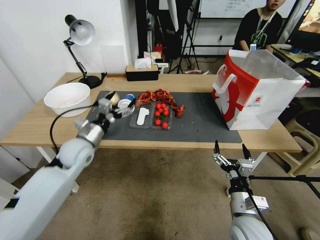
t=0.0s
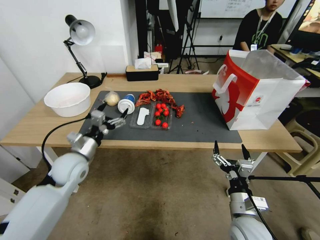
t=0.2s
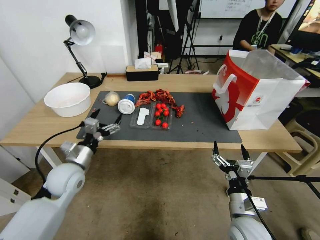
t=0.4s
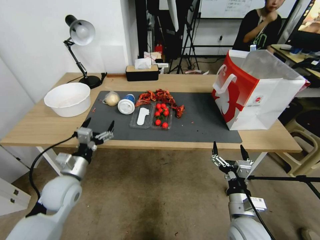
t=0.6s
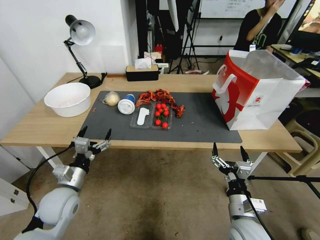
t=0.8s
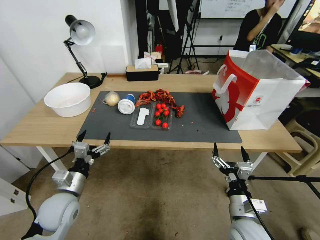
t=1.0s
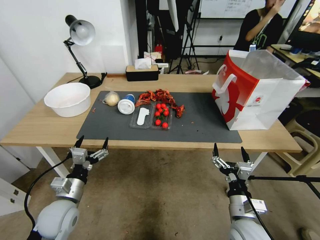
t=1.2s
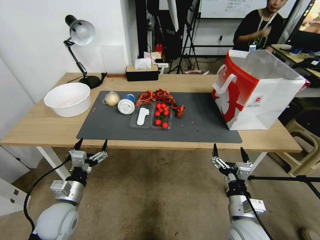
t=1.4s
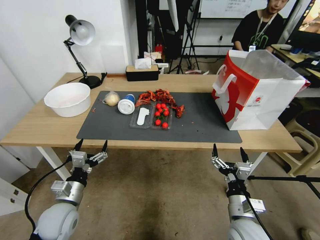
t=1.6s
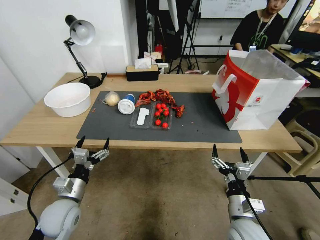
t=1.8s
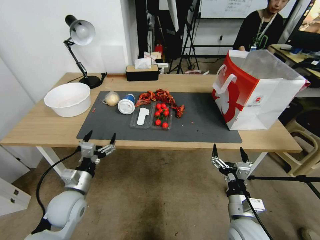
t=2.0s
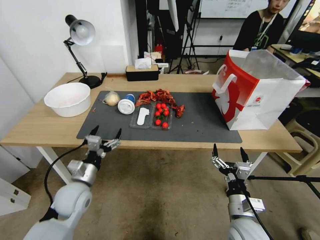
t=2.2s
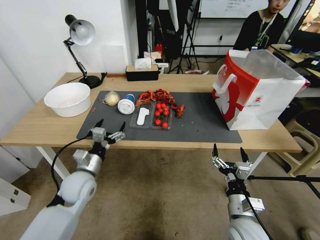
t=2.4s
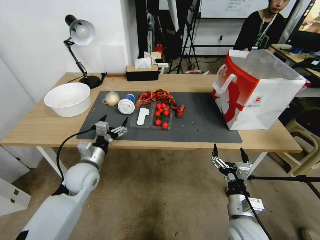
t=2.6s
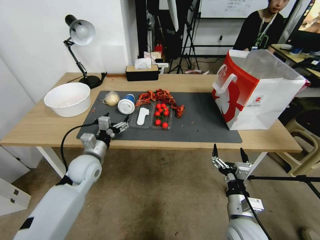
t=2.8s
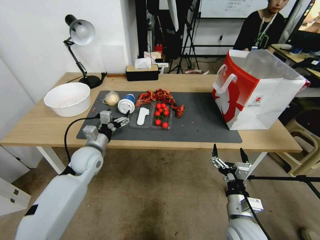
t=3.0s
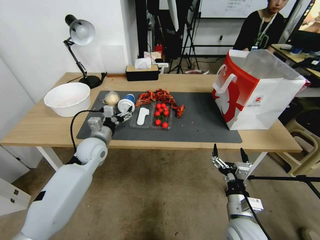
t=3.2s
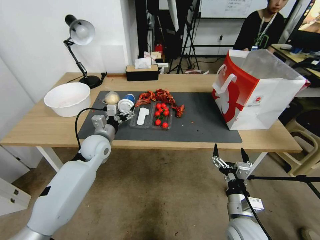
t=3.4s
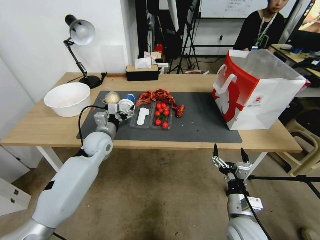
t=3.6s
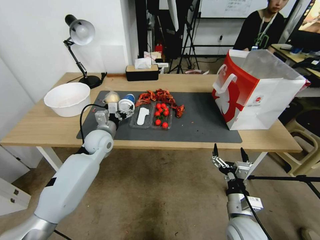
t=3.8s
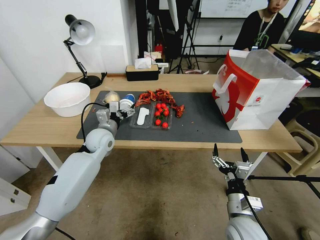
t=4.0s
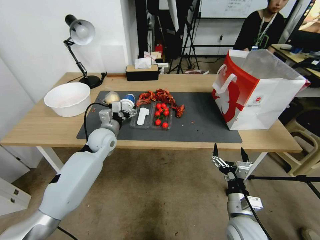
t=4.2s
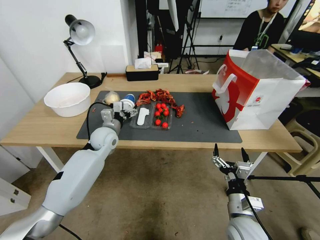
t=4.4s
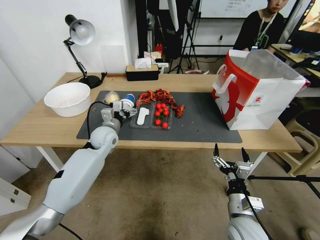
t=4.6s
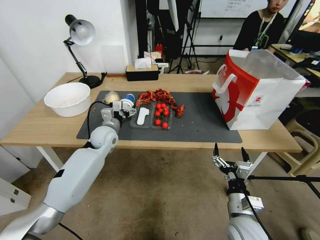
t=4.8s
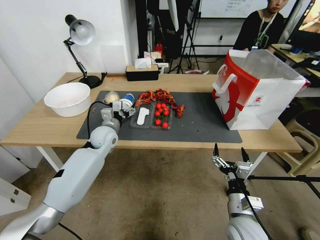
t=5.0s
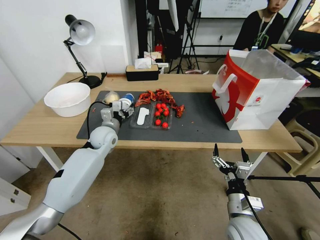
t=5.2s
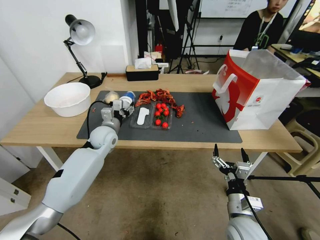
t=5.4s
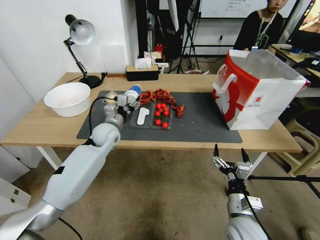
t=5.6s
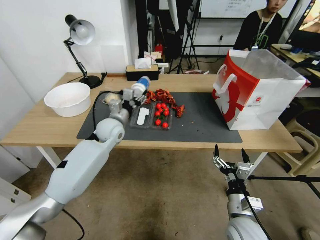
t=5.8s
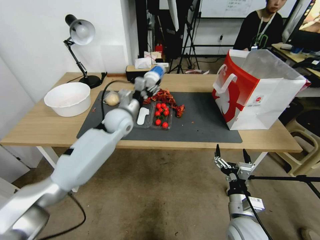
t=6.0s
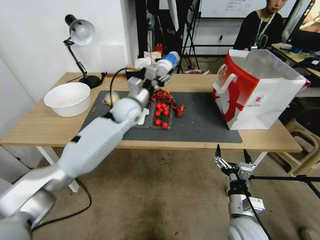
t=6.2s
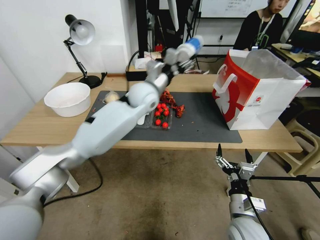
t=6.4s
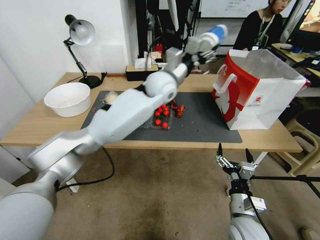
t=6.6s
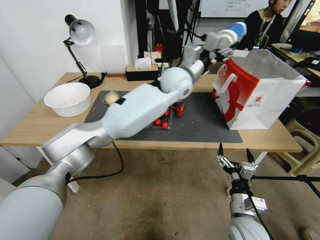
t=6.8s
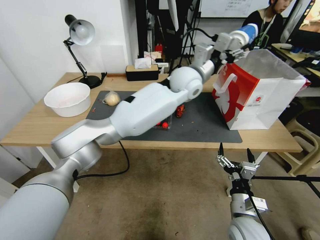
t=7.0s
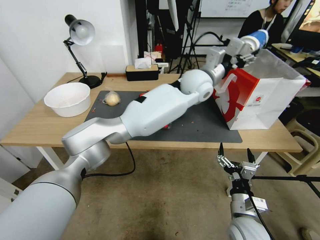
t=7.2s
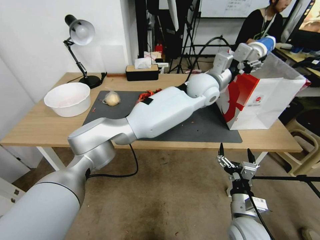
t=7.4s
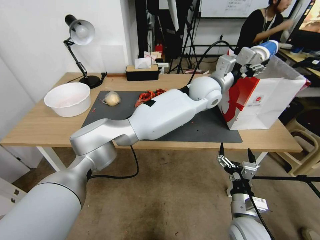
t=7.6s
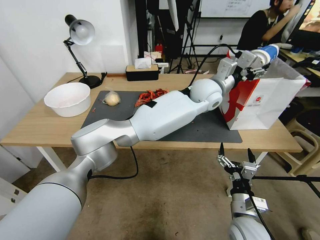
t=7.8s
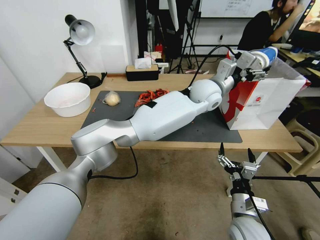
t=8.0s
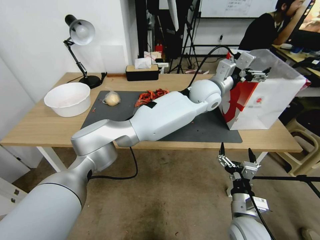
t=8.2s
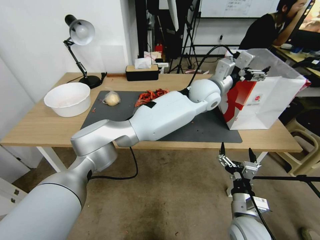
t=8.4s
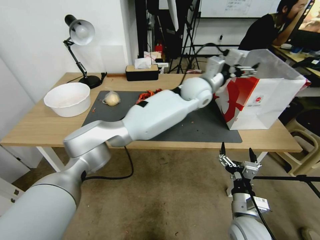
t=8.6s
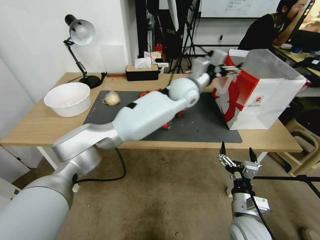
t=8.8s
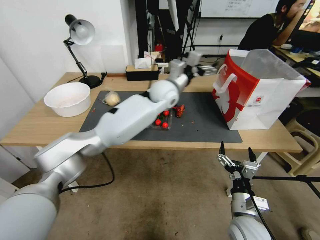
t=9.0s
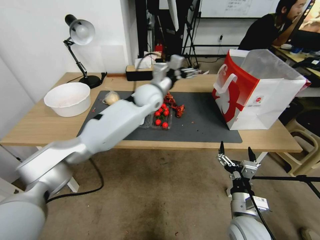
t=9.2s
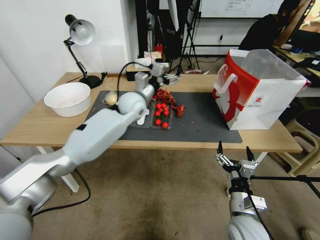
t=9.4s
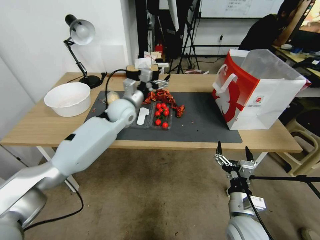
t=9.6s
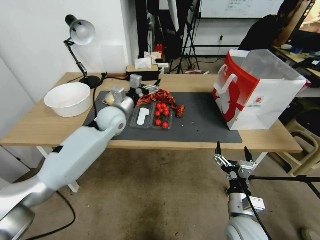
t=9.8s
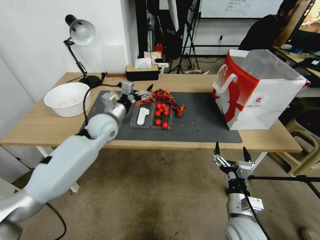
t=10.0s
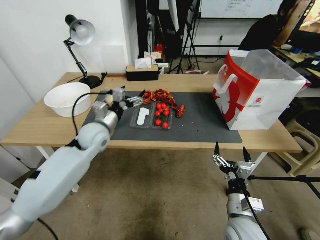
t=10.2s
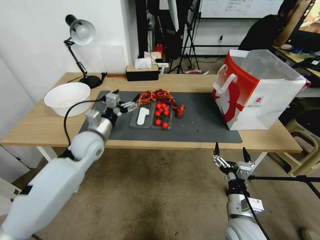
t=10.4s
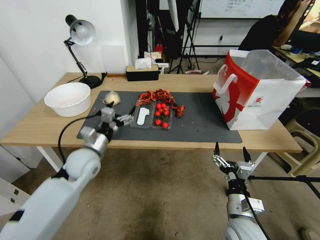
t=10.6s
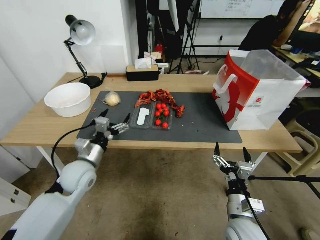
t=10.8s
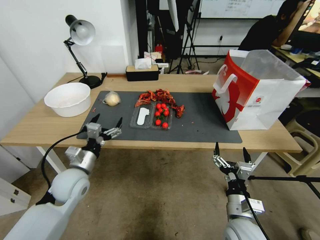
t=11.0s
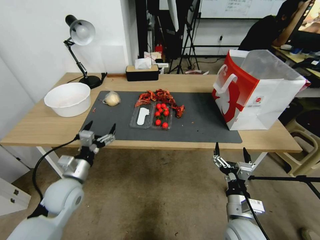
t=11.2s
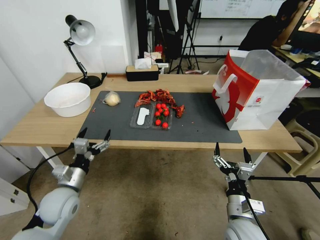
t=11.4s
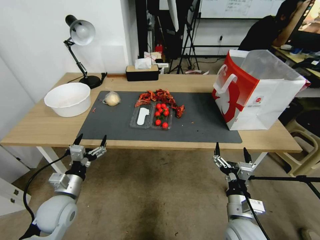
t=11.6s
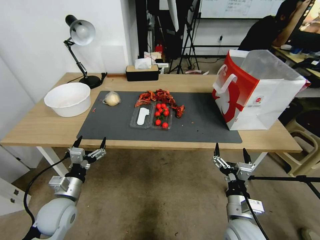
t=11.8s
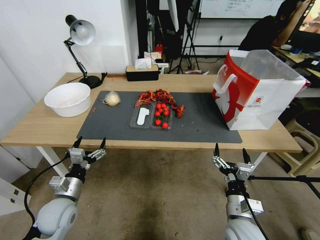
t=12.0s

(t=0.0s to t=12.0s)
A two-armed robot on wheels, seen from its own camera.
t=0.0s - t=1.6s: The left gripper shifts approximately 20 cm backward and downward.
t=1.6s - t=3.0s: The left gripper heads forward, covering roughly 15 cm.
t=3.0s - t=4.4s: The left gripper heads forward, covering approximately 10 cm.
t=4.4s - t=6.0s: The left gripper closes.
t=6.0s - t=7.6s: The left gripper moves to the right and upward, approximately 40 cm.
t=7.6s - t=9.0s: The left gripper is displaced to the left by approximately 10 cm, and opens its fingers.
t=9.0s - t=10.4s: The left gripper is displaced to the left, backward and downward by roughly 35 cm.
t=10.4s - t=12.0s: The left gripper moves backward, downward and to the left, approximately 20 cm.

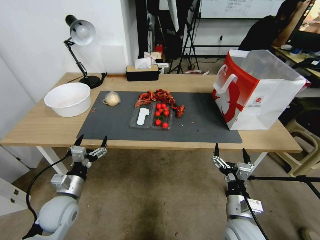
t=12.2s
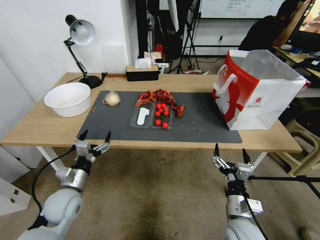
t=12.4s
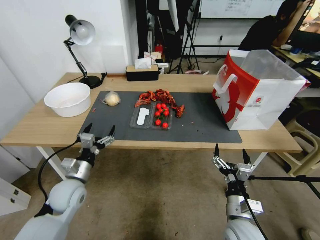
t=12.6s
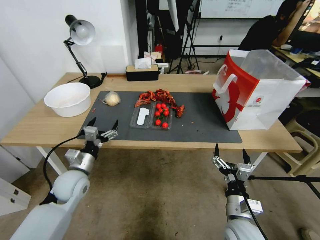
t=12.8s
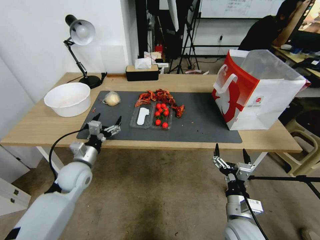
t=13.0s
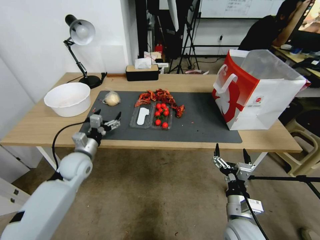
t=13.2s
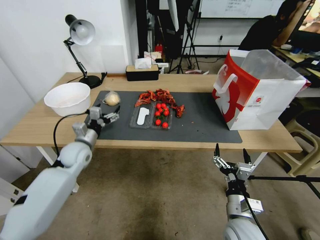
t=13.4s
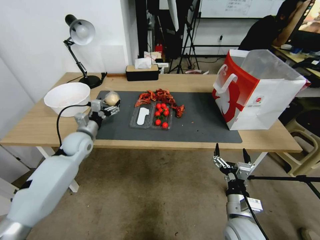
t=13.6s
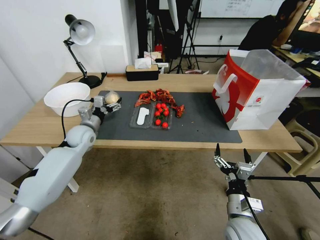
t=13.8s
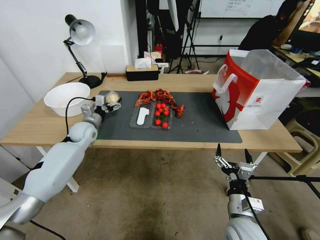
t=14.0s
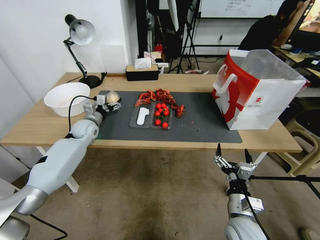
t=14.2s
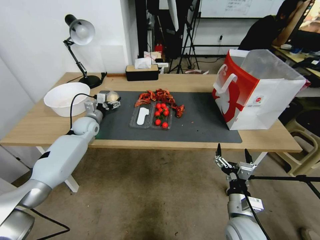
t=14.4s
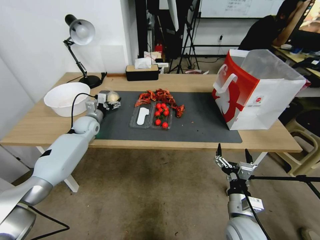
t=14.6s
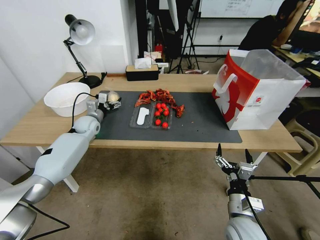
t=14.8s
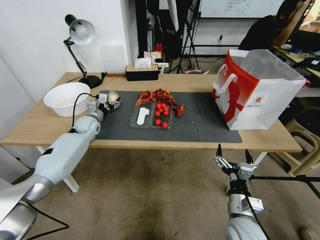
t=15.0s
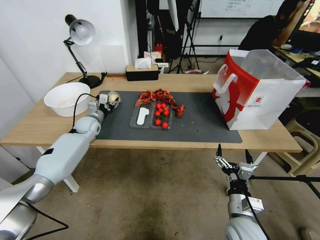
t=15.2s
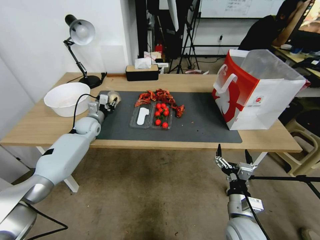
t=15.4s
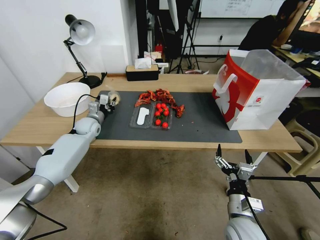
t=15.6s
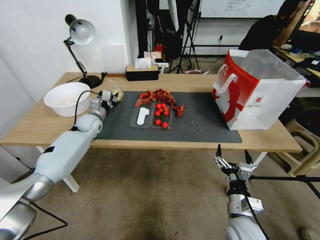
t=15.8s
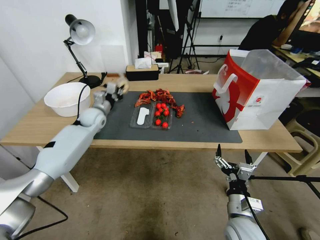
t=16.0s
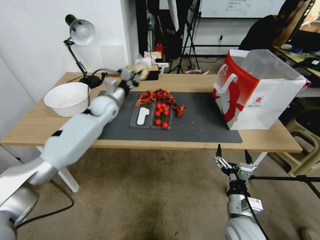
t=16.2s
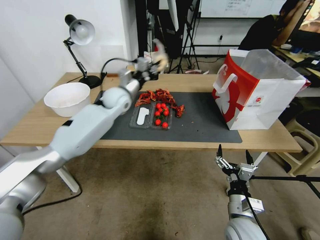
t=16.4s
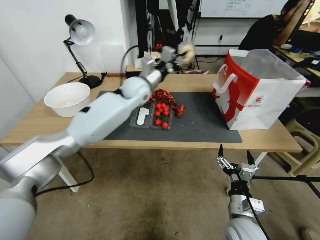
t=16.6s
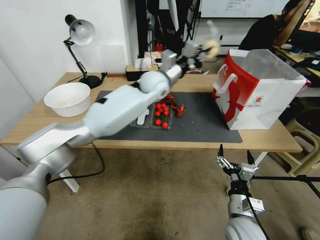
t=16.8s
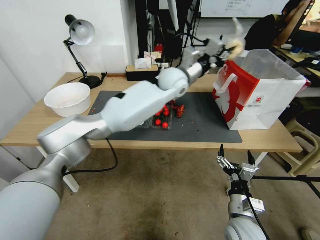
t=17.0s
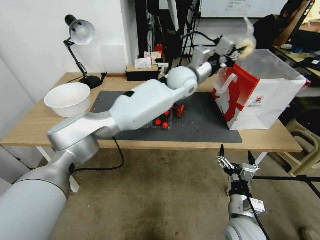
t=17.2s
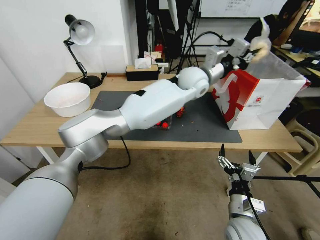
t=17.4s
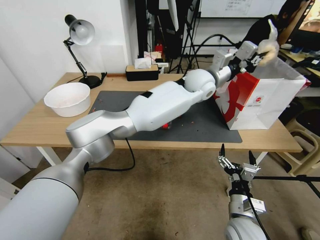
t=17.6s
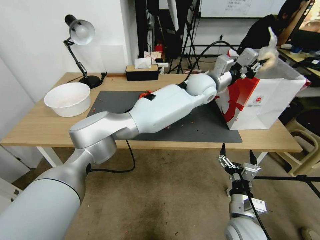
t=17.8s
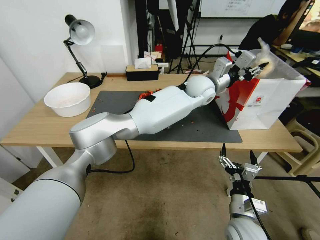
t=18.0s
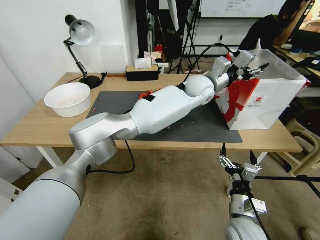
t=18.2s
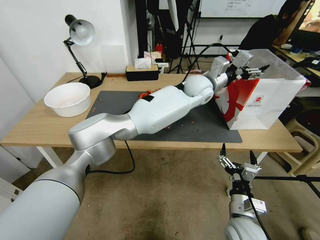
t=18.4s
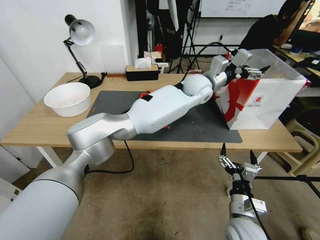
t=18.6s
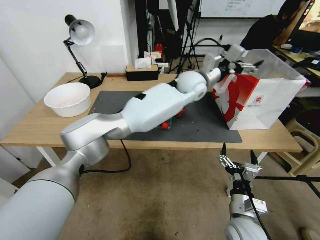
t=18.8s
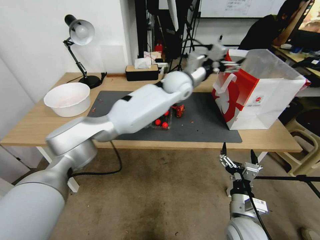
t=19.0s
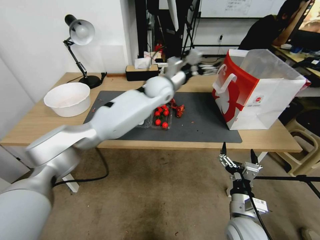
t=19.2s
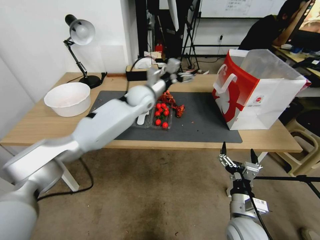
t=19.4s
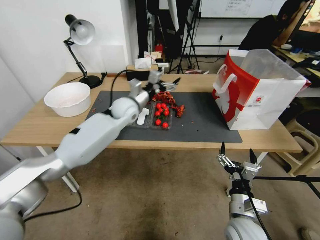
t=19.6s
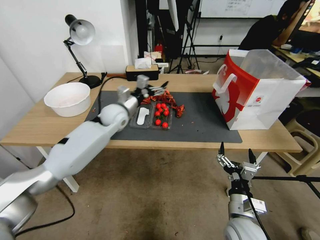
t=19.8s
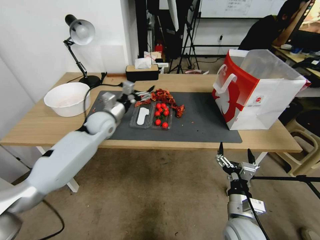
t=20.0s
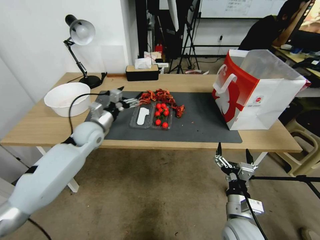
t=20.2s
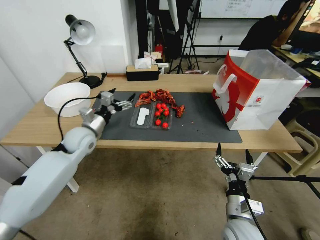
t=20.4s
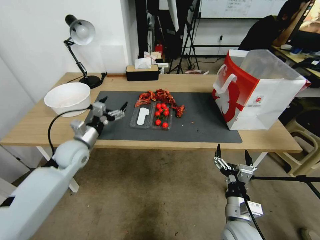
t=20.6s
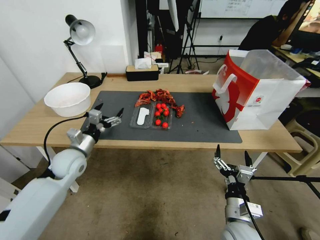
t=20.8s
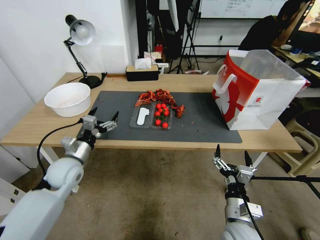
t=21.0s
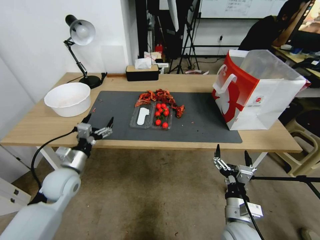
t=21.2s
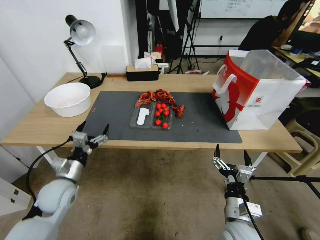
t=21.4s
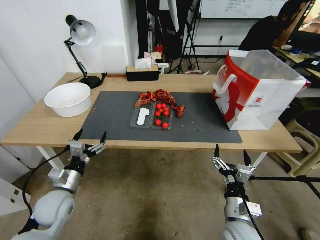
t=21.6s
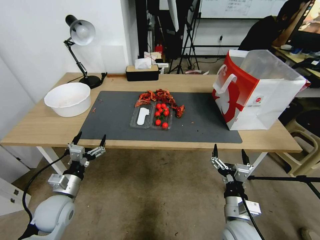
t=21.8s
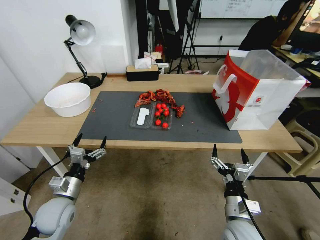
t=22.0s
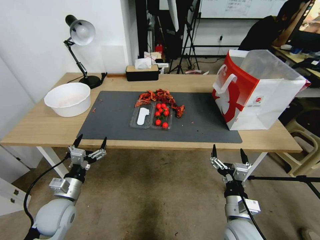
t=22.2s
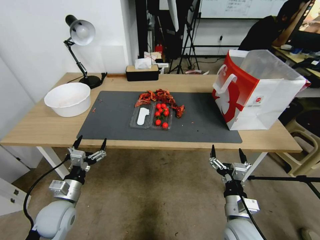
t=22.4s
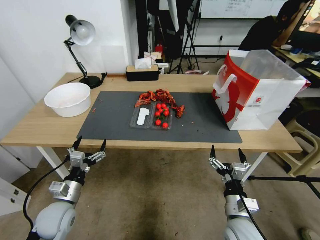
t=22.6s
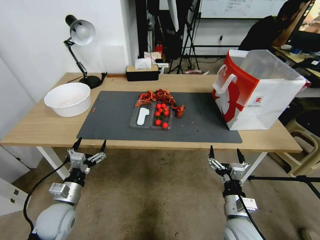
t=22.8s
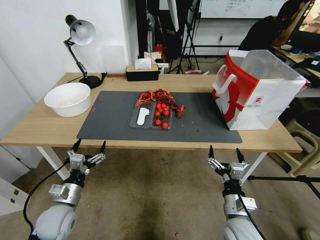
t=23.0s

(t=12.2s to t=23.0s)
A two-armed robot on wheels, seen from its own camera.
t=12.2s - t=13.8s: The left gripper shifts approximately 25 cm forward.
t=13.8s - t=15.2s: The left gripper goes roughly 5 cm forward, and closes its fingers.
t=15.2s - t=16.8s: The left gripper travels to the right and upward by some 35 cm, and closes.
t=16.8s - t=18.4s: The left gripper travels to the right by about 15 cm, and opens its fingers.
t=18.4s - t=20.0s: The left gripper shifts roughly 35 cm to the left.
t=20.0s - t=21.4s: The left gripper heads backward, to the left and downward, covering about 25 cm.
t=21.4s - t=23.0s: The left gripper travels backward by about 5 cm.
